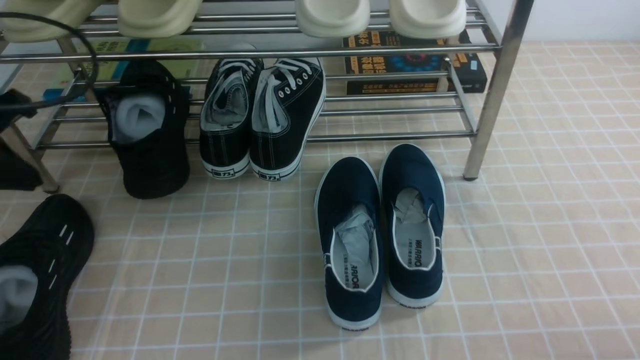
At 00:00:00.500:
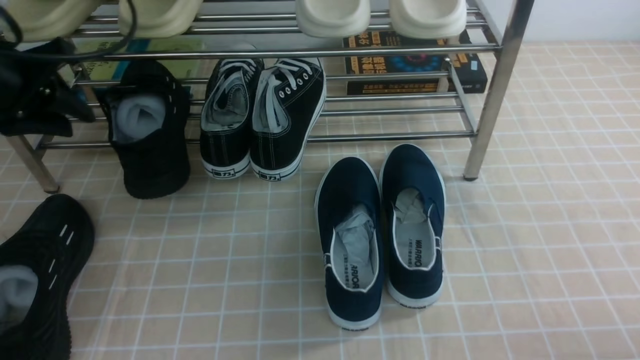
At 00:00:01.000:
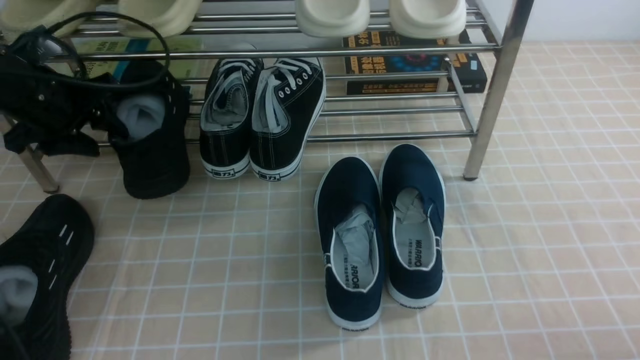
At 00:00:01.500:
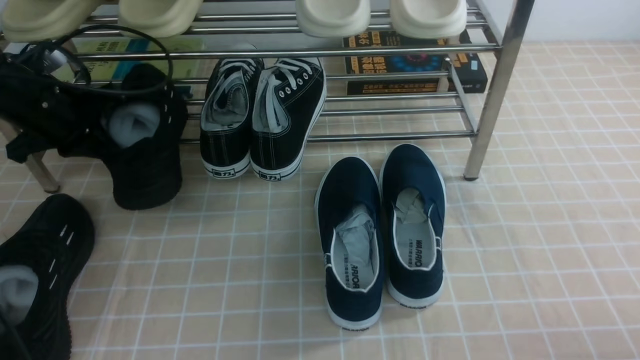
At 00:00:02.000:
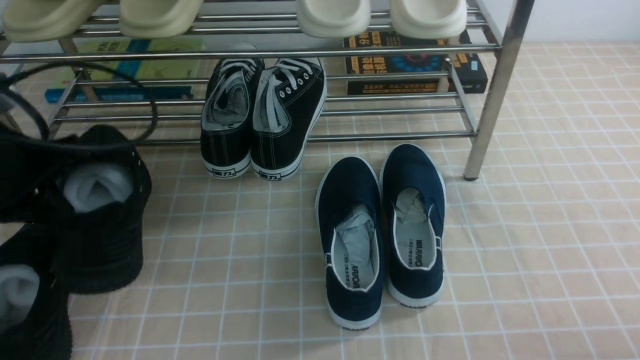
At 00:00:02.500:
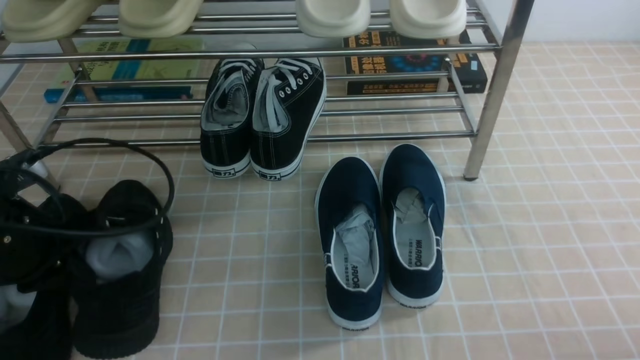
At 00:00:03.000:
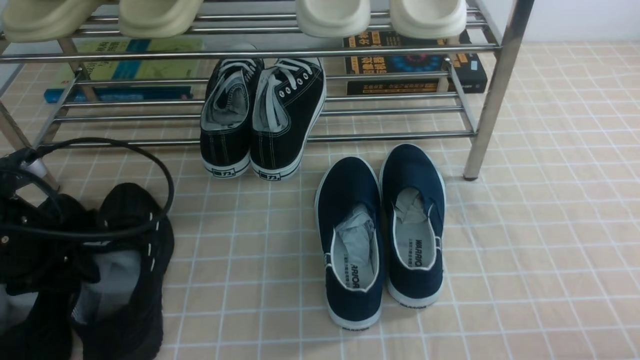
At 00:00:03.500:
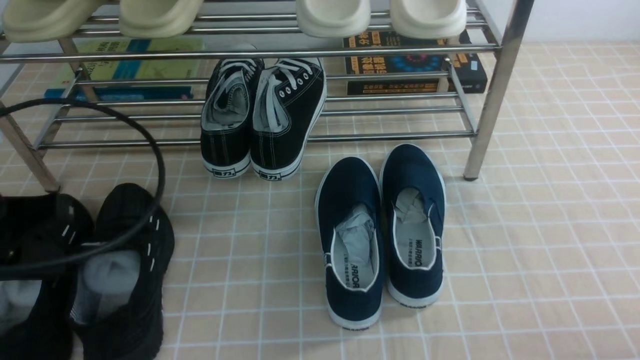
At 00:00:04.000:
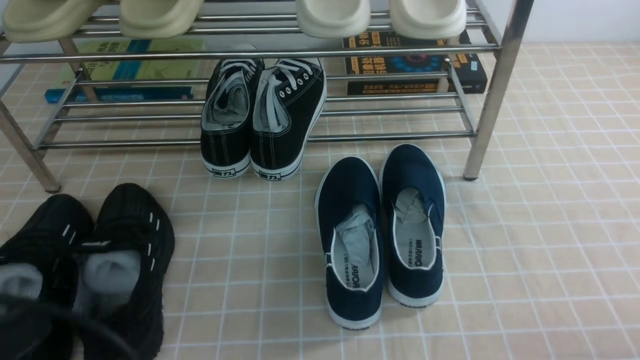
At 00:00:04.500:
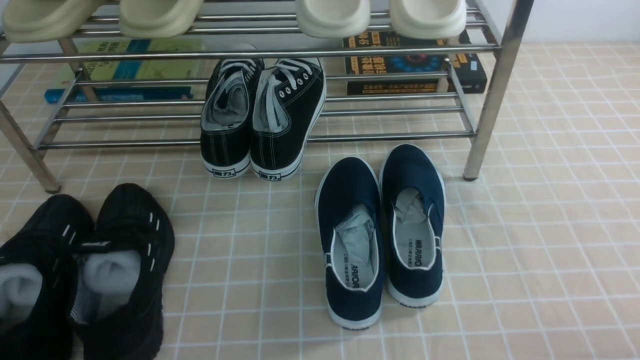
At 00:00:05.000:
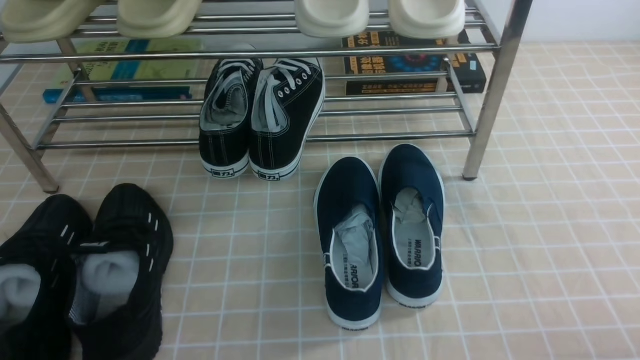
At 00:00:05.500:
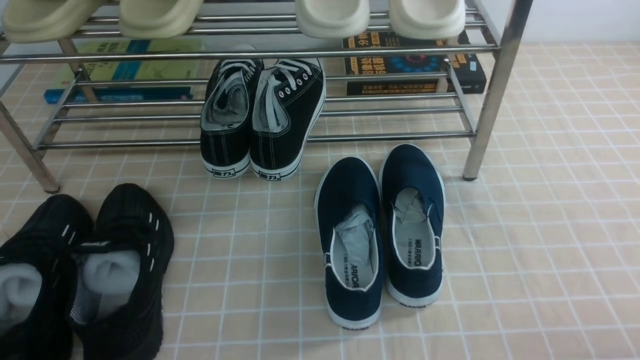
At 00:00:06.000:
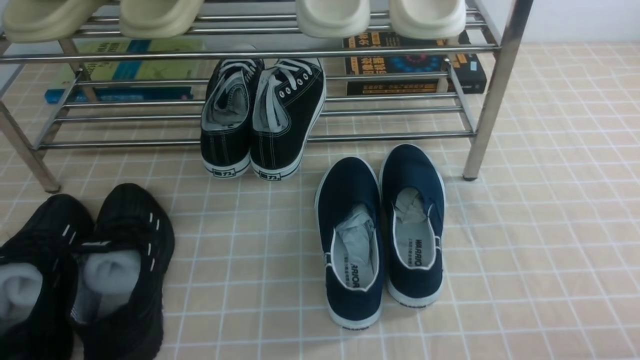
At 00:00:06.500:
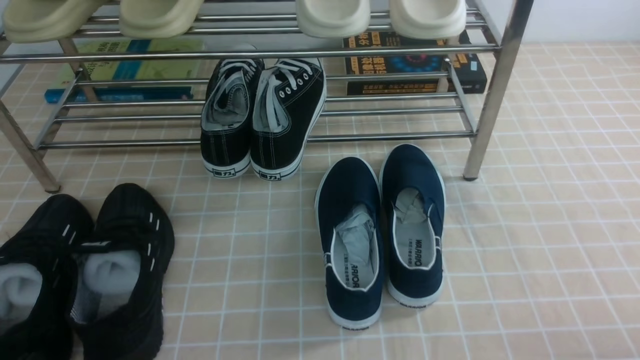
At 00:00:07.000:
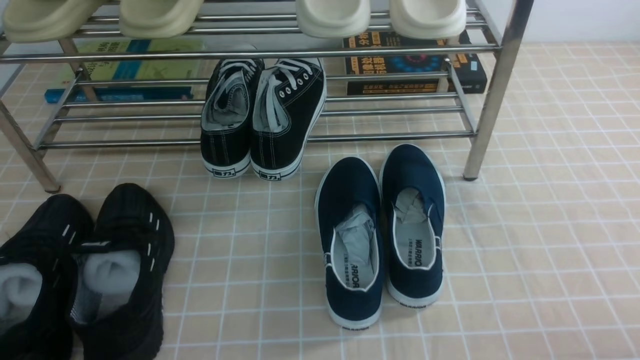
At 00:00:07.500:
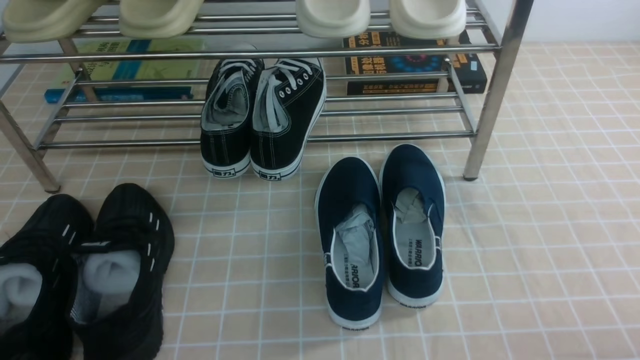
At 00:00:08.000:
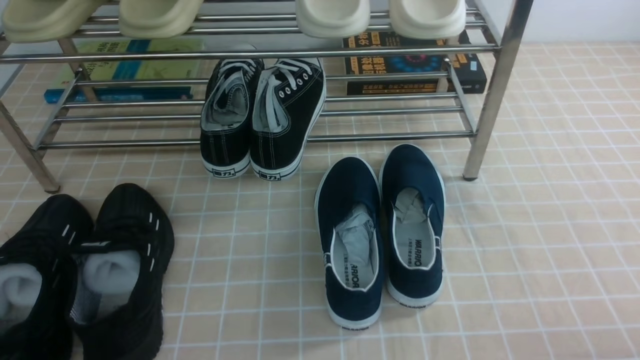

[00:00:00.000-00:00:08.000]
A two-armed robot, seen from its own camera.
Step, 00:00:00.000 to 00:00:01.000: use the left arm to clamp a shoe on the left side of the shoe rack.
Step, 00:00:01.500 to 00:00:03.000: Use your left arm to remove the clamped shoe from the shoe rack and put it down.
00:00:00.000 to 00:00:02.000: The left gripper reaches some 10 cm forward, then returns, and opens, then closes again.
00:00:02.000 to 00:00:04.000: The left gripper moves backward, roughly 25 cm, and opens and closes again.
00:00:04.000 to 00:00:06.000: The left gripper shifts approximately 10 cm downward.
00:00:06.000 to 00:00:08.000: Both grippers stay put.
